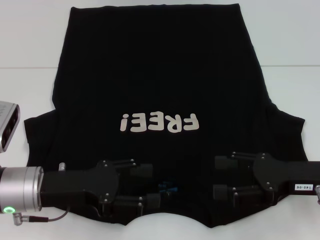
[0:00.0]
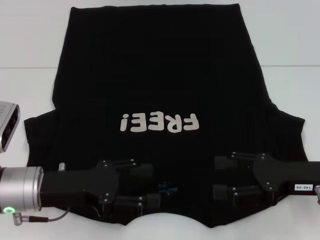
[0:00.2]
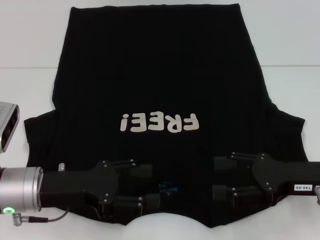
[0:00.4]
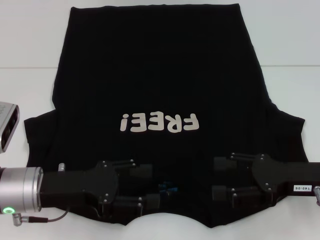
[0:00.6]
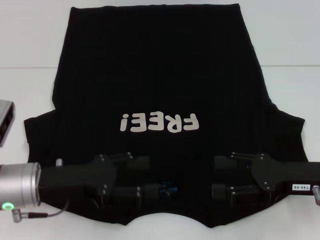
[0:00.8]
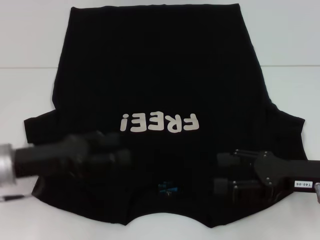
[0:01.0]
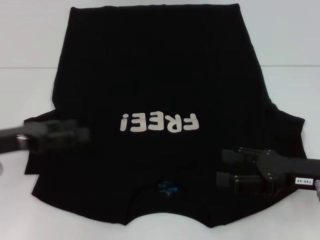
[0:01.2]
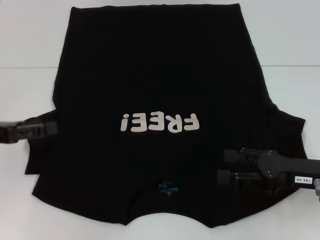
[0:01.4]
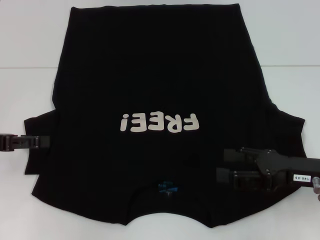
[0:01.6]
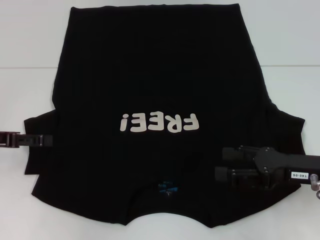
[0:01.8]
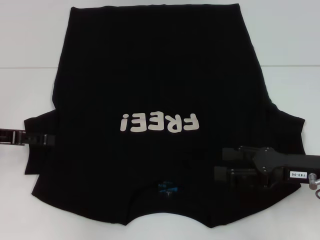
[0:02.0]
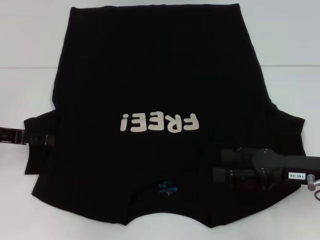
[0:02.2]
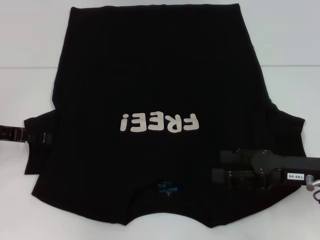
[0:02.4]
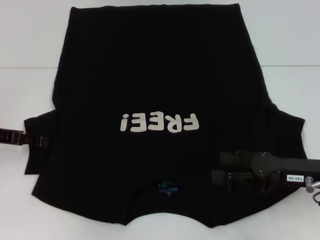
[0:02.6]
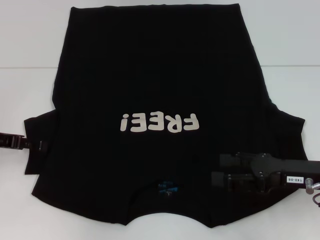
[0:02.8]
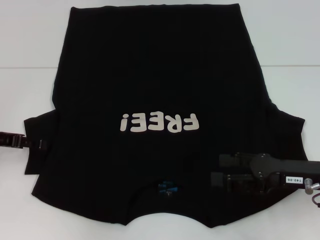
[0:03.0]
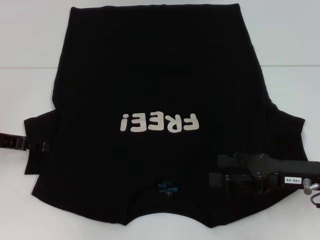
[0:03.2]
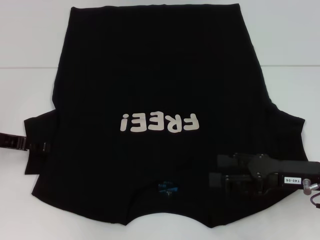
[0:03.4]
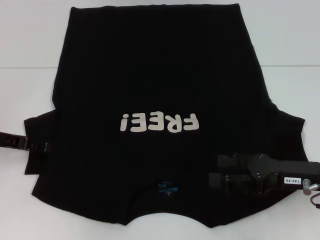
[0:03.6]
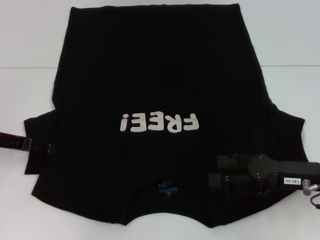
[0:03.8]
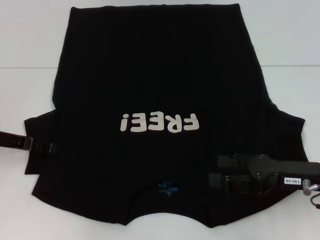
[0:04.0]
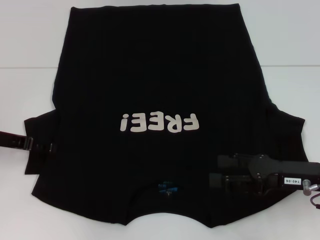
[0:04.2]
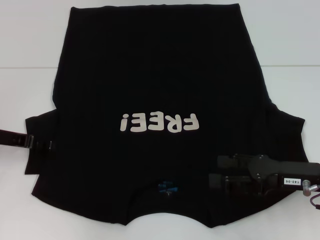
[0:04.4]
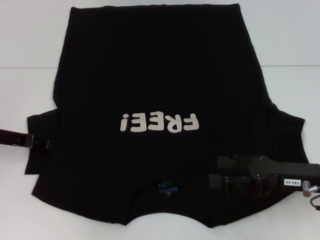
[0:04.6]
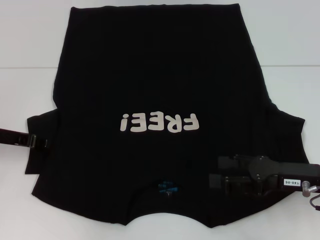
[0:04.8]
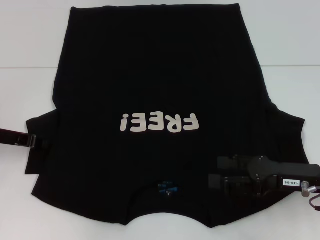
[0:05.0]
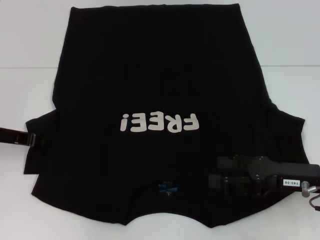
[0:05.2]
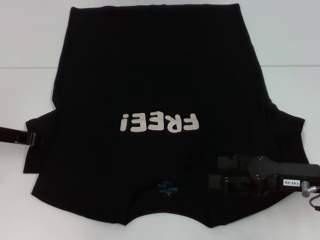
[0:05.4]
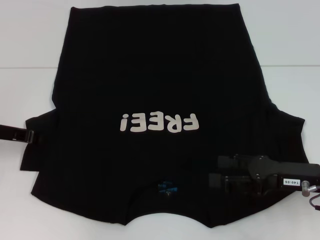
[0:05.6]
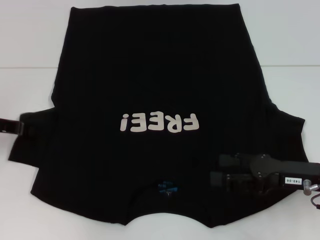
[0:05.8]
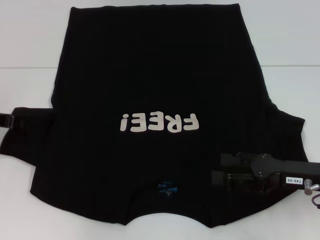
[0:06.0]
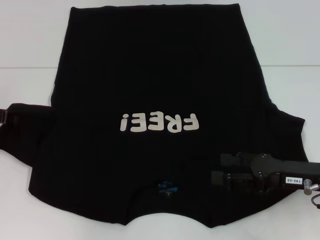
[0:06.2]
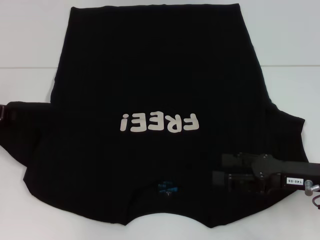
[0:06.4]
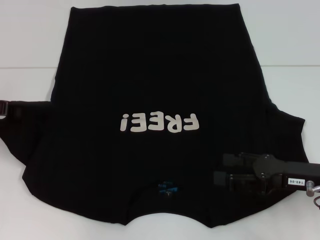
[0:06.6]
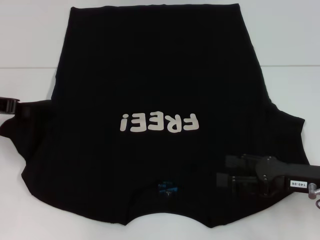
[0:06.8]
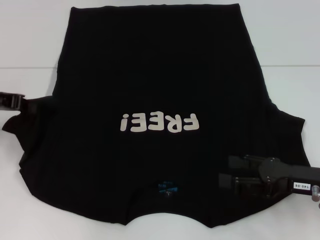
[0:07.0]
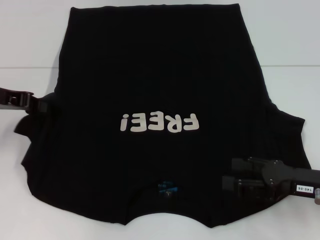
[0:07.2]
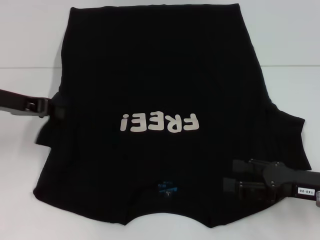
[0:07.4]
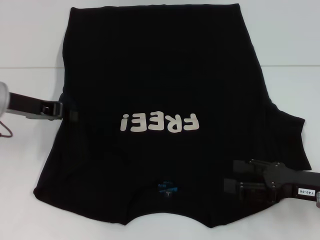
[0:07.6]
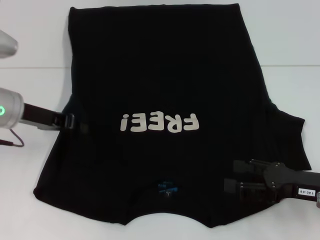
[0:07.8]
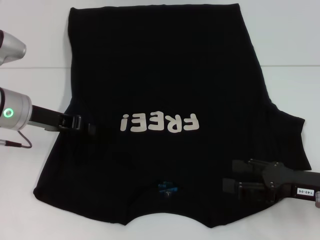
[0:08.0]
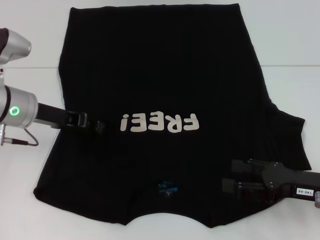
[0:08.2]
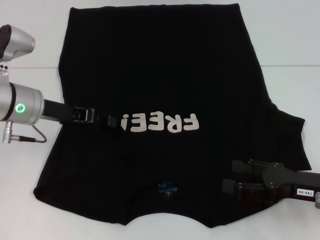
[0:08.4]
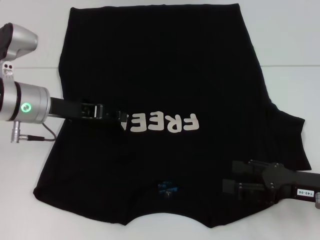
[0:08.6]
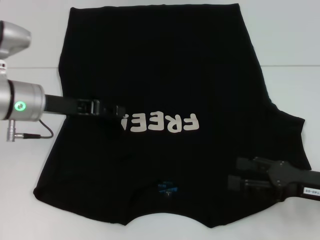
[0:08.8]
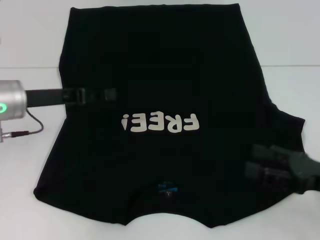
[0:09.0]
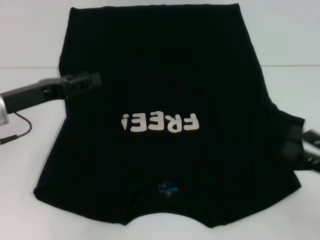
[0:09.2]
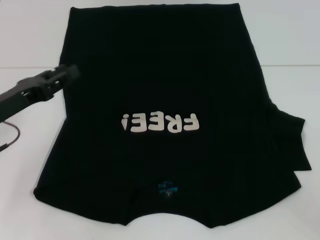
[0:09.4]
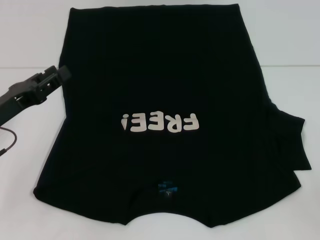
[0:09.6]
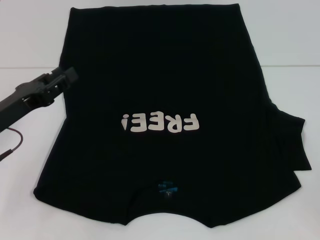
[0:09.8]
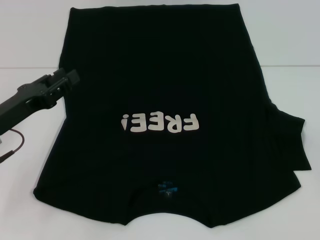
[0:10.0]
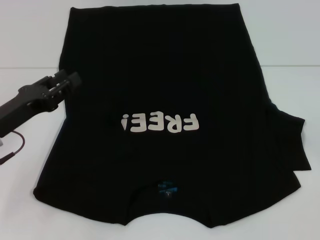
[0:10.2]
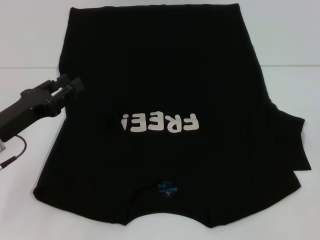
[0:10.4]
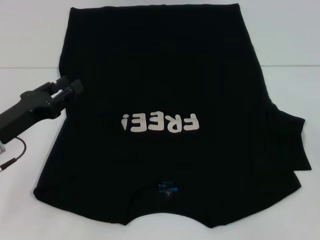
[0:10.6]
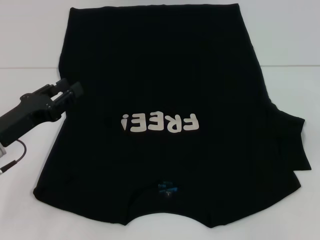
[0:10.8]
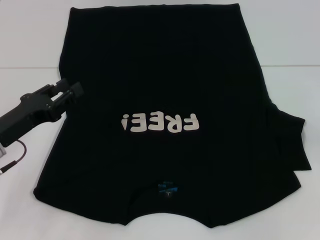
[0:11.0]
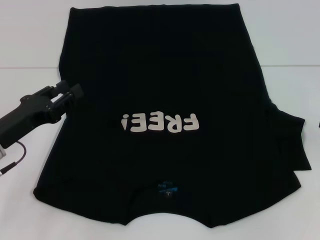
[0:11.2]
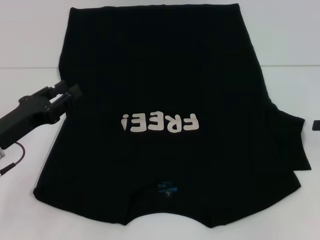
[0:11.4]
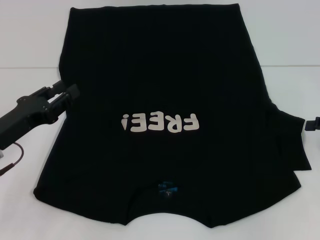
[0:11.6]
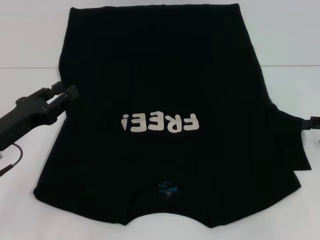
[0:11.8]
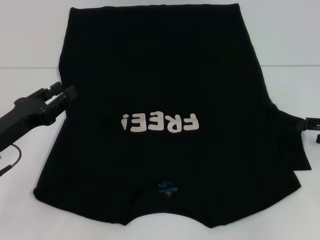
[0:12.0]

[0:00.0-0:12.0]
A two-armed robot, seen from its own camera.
Step, 0:00.0 to 0:08.4: Fold the bottom left sleeve with your left hand.
0:00.0 to 0:01.6: The left gripper shifts some 15 cm to the left.
0:03.0 to 0:04.4: The grippers move only a little.
0:04.4 to 0:06.0: The left gripper closes its fingers.
0:06.0 to 0:07.6: The left gripper travels to the right by about 5 cm.
0:07.6 to 0:09.0: The left gripper opens.
0:09.0 to 0:10.4: The right gripper is displaced to the right by some 15 cm, while the left gripper heads backward and downward, covering some 10 cm.

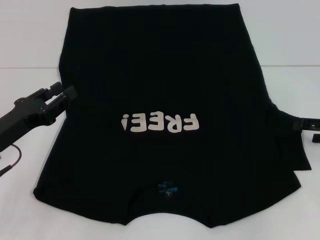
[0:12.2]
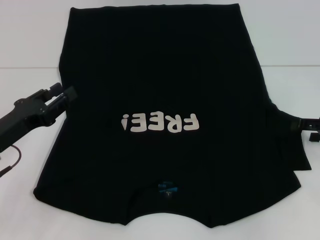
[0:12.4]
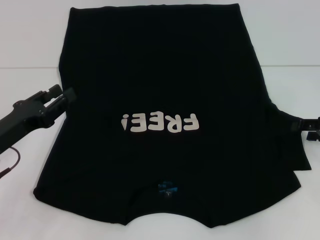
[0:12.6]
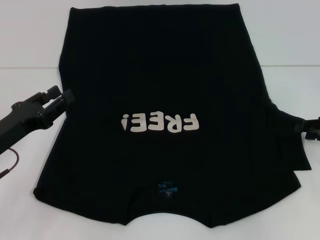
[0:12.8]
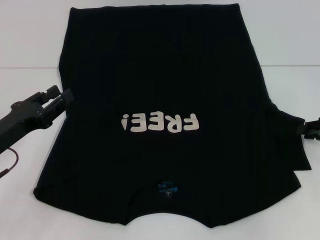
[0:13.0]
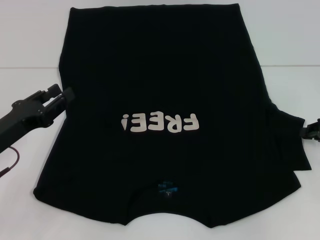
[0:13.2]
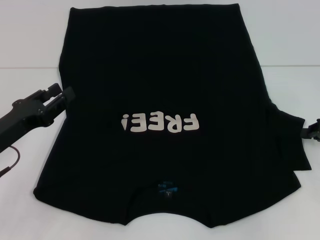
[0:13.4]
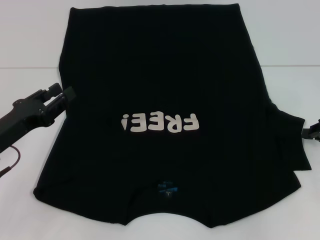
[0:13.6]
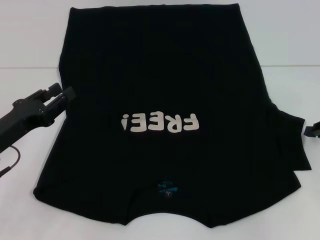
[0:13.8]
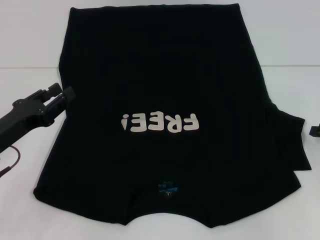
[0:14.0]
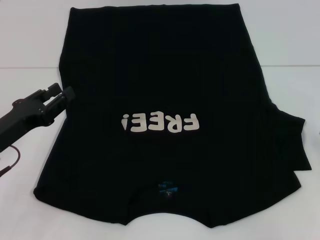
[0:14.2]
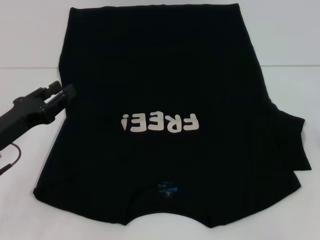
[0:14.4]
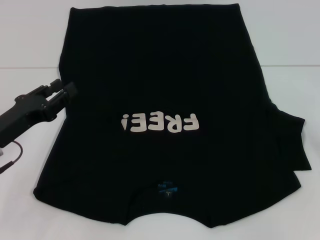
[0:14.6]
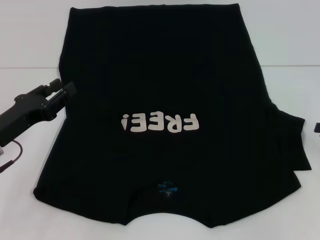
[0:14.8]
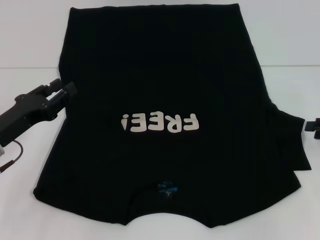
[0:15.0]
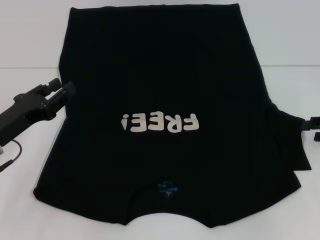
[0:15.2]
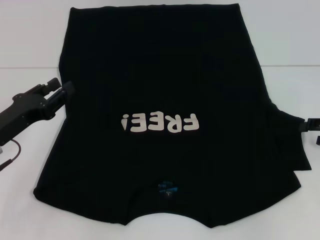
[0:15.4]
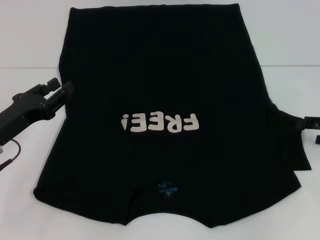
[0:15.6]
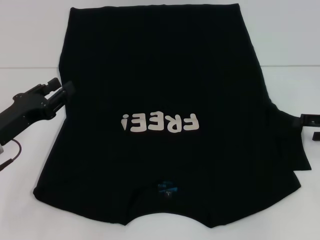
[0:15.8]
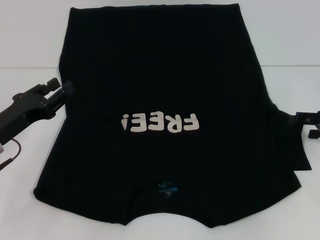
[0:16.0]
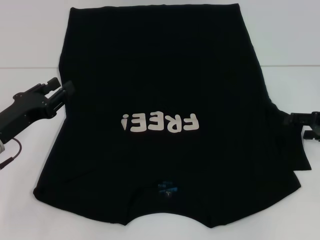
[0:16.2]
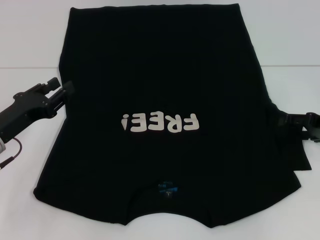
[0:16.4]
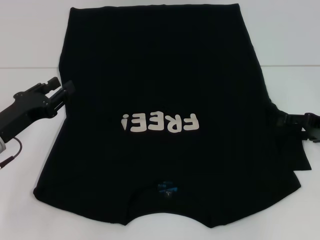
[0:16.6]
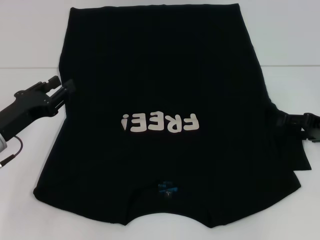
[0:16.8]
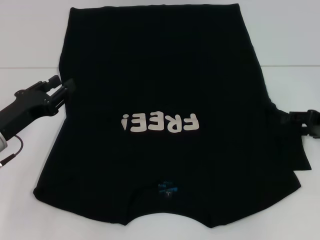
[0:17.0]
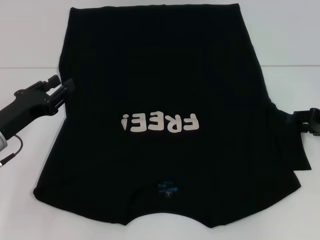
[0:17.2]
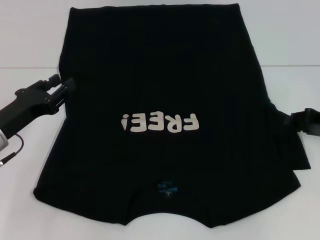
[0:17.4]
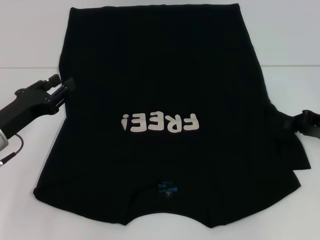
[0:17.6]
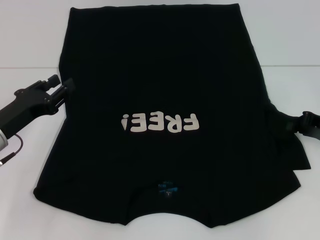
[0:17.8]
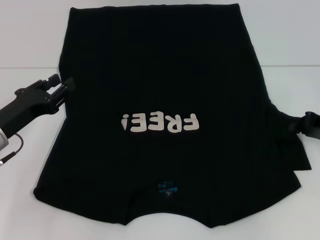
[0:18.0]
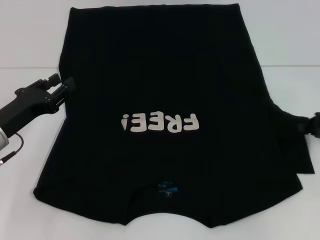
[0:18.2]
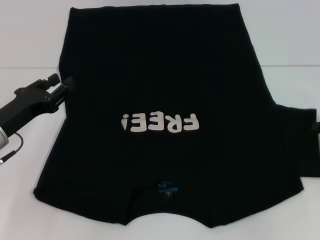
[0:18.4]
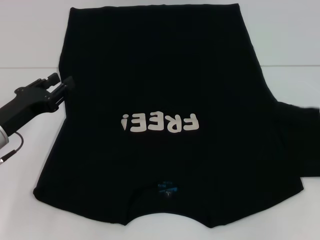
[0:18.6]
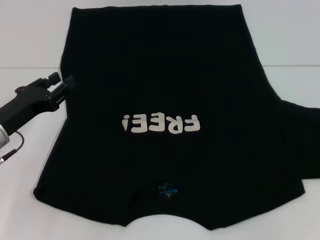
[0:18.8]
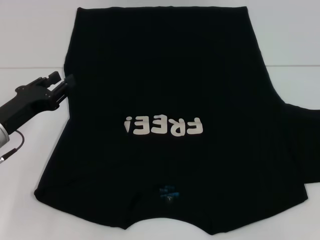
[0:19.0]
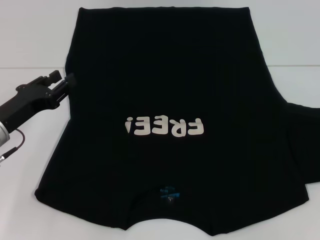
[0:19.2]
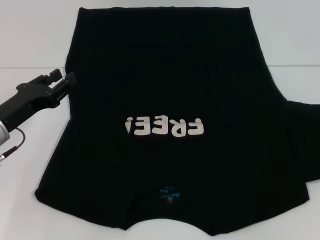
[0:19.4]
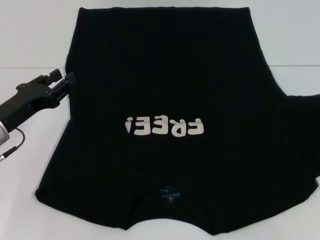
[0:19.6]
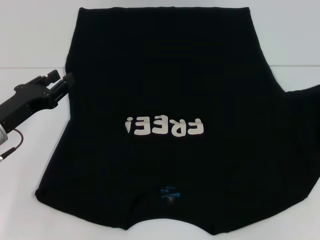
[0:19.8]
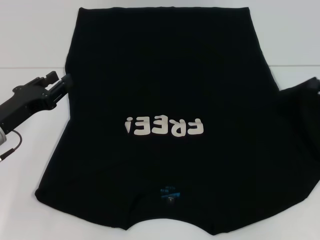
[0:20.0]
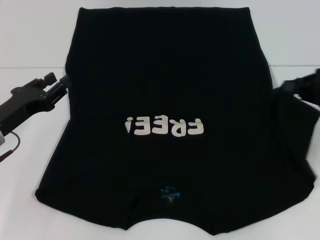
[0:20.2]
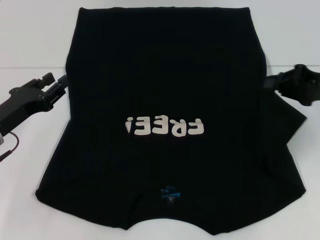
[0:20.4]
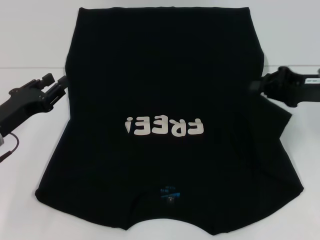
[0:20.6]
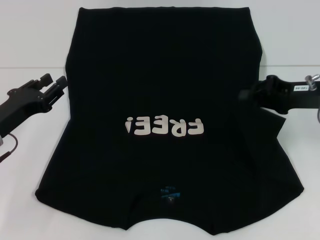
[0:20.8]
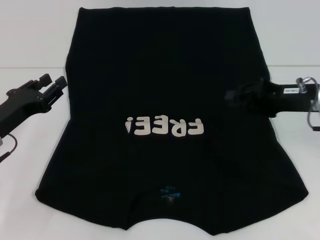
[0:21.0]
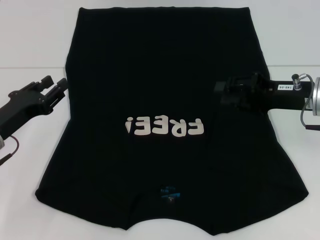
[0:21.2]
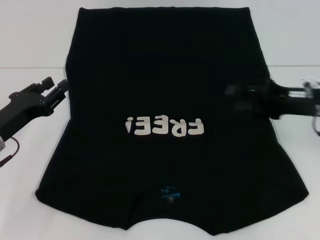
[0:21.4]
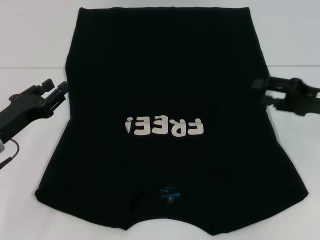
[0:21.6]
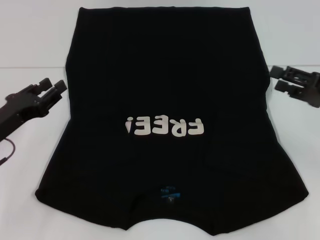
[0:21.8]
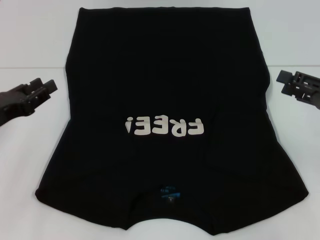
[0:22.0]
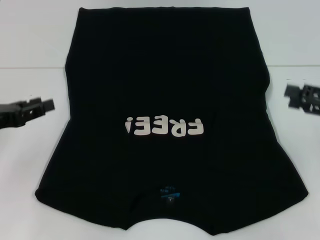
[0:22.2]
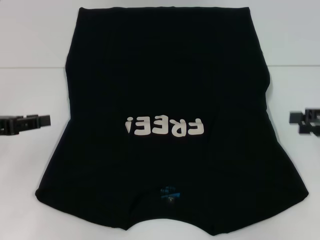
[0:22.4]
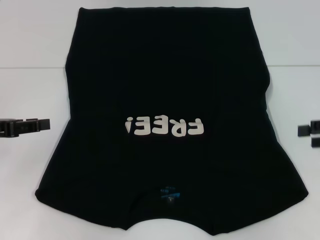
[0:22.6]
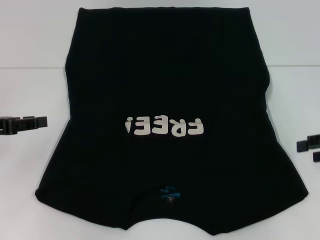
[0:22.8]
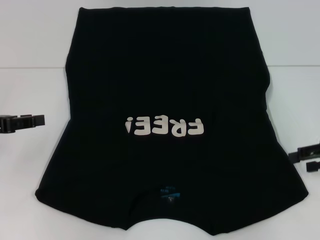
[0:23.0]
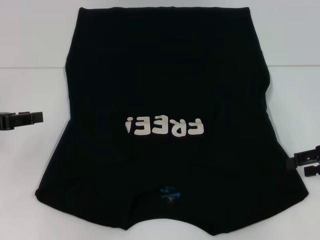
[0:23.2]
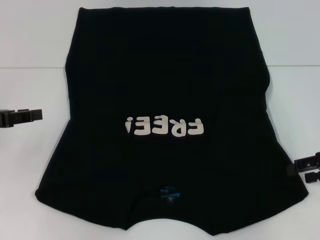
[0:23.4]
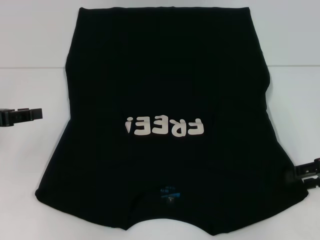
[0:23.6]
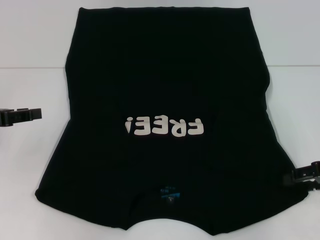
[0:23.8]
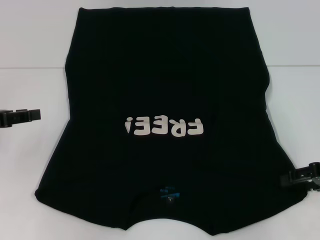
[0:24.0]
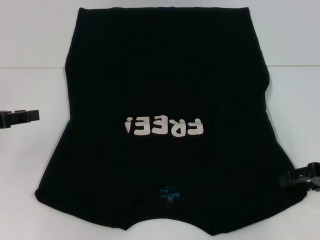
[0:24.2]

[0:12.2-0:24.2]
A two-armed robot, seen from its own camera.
Step, 0:12.2 to 0:21.0: Fold the bottom right sleeve with your right hand.
0:16.6 to 0:18.2: The right gripper closes its fingers.
0:18.2 to 0:19.8: The right gripper goes roughly 5 cm upward.
0:19.8 to 0:21.2: The right gripper heads to the left, covering about 15 cm.
0:21.2 to 0:22.6: The right gripper moves to the right, approximately 10 cm, and opens. The left gripper heads upward and to the left, covering about 10 cm.
0:22.6 to 0:24.2: The right gripper goes about 5 cm downward.
